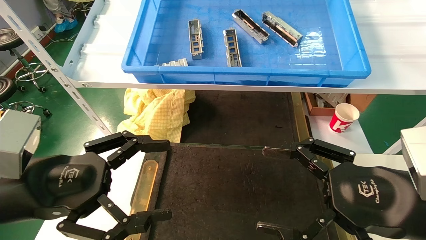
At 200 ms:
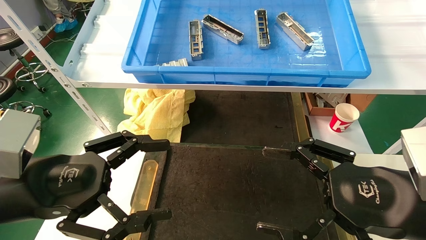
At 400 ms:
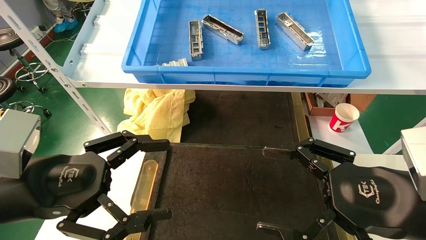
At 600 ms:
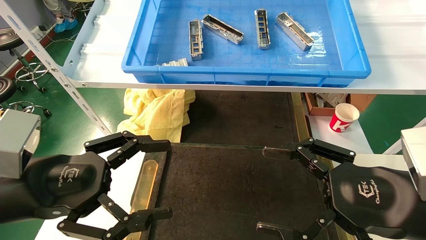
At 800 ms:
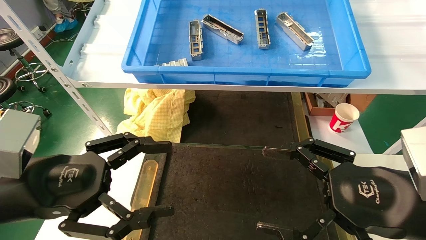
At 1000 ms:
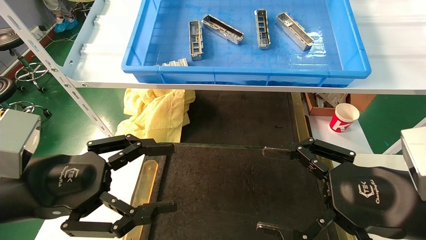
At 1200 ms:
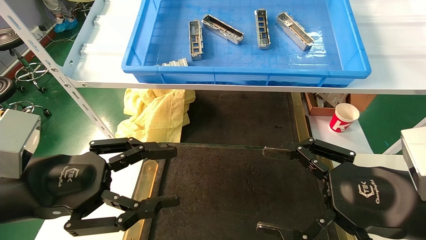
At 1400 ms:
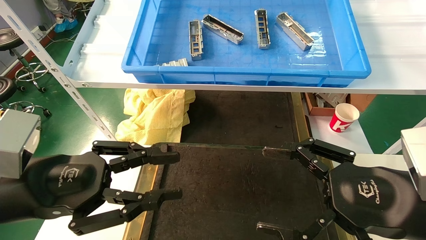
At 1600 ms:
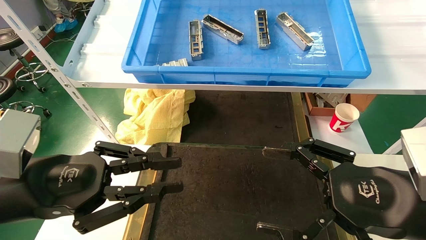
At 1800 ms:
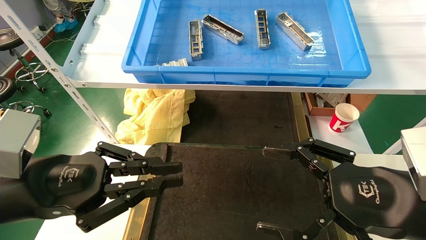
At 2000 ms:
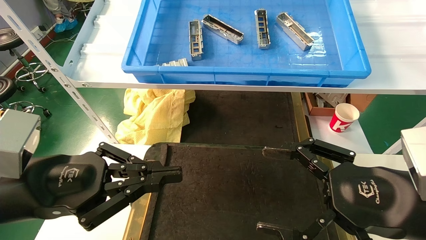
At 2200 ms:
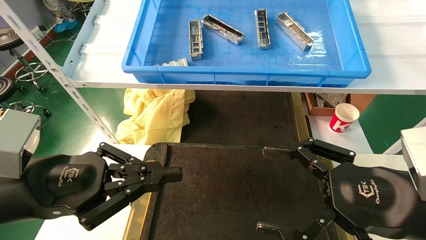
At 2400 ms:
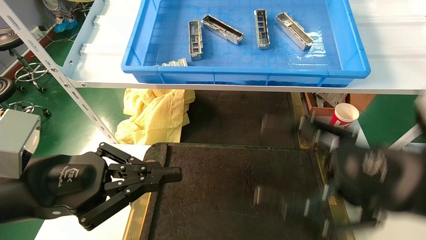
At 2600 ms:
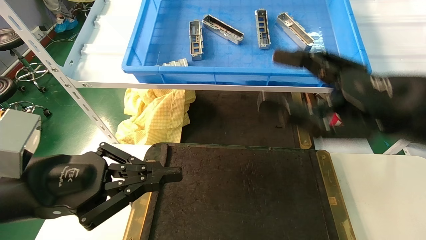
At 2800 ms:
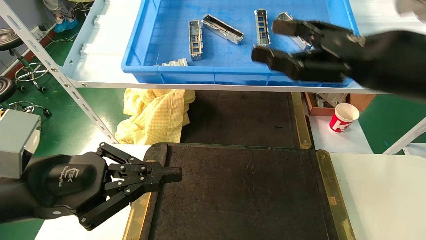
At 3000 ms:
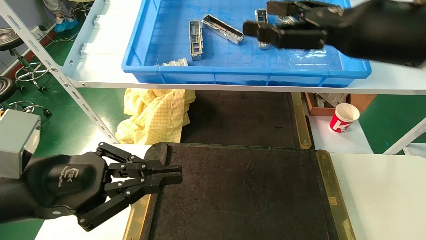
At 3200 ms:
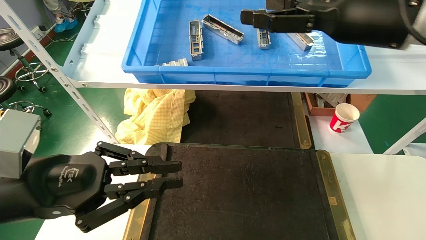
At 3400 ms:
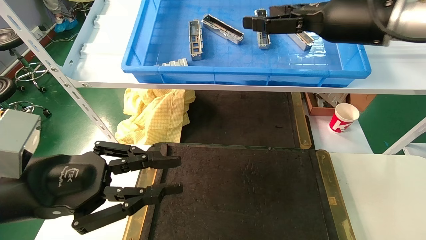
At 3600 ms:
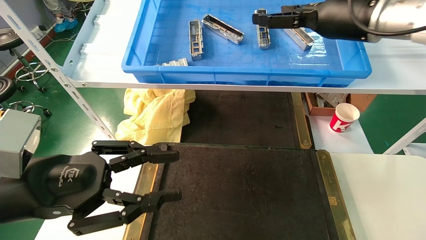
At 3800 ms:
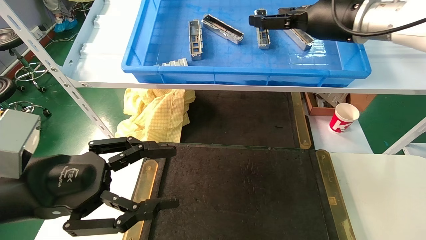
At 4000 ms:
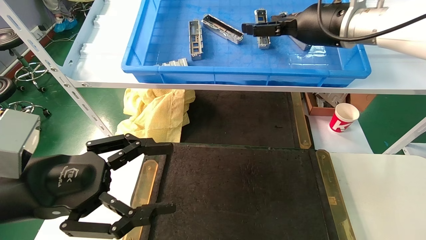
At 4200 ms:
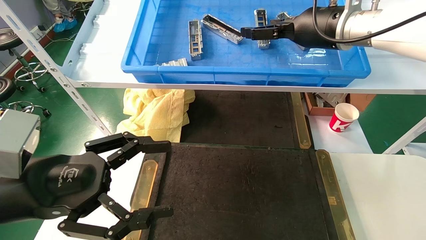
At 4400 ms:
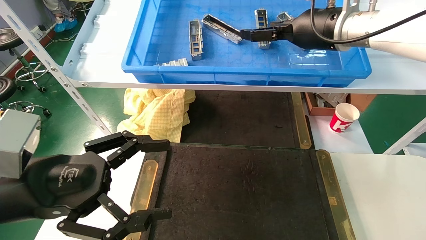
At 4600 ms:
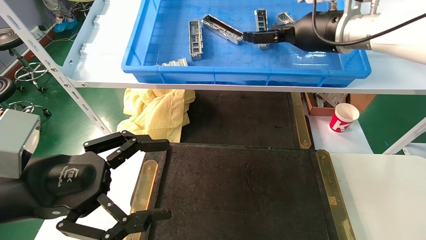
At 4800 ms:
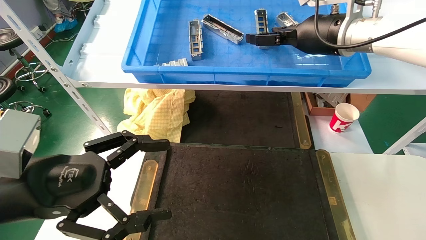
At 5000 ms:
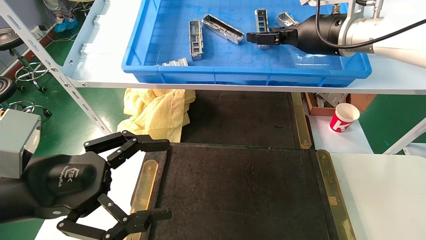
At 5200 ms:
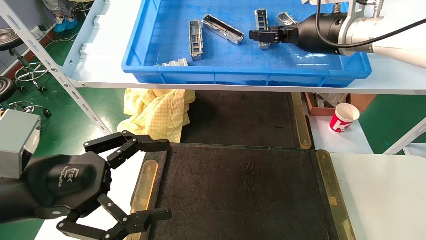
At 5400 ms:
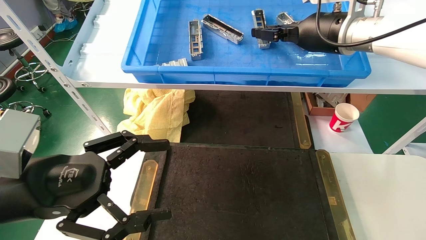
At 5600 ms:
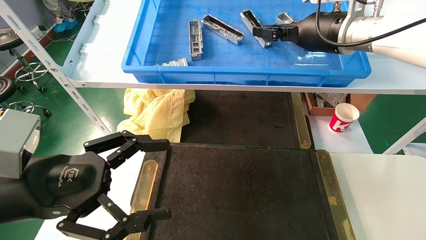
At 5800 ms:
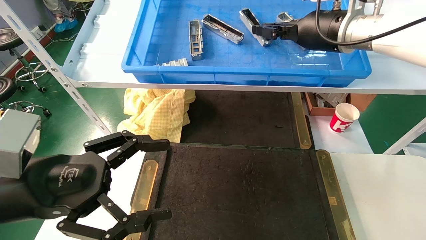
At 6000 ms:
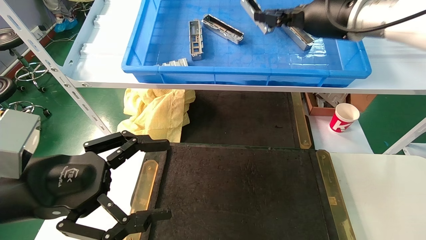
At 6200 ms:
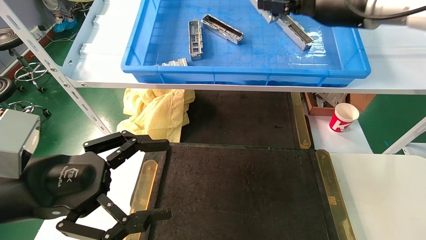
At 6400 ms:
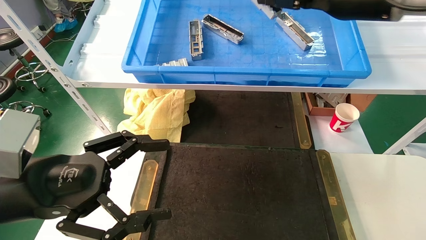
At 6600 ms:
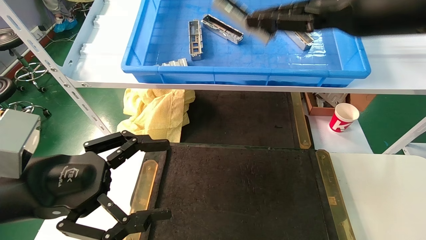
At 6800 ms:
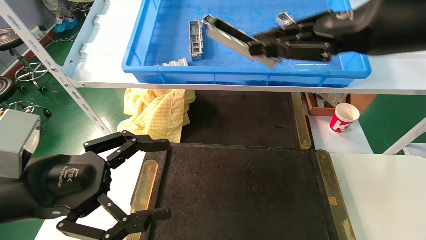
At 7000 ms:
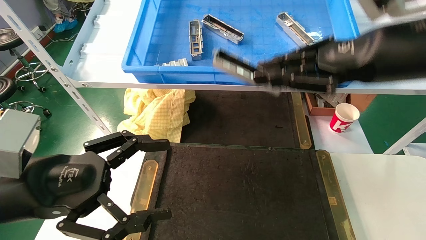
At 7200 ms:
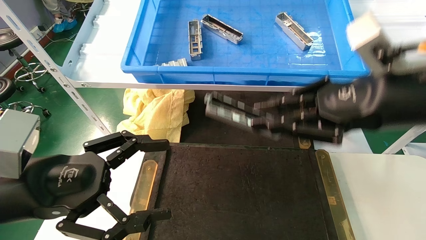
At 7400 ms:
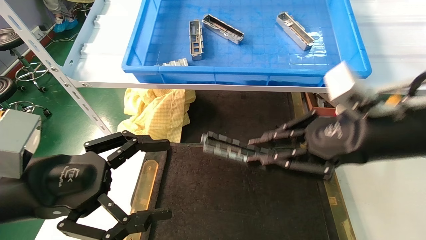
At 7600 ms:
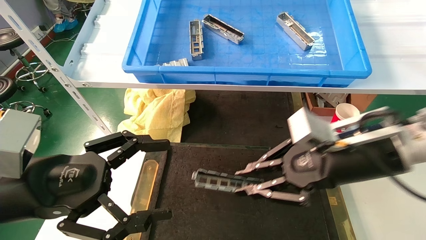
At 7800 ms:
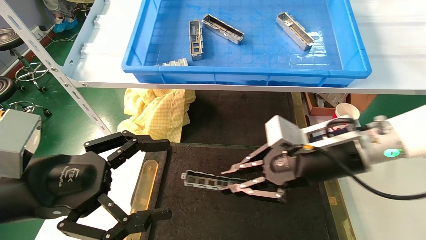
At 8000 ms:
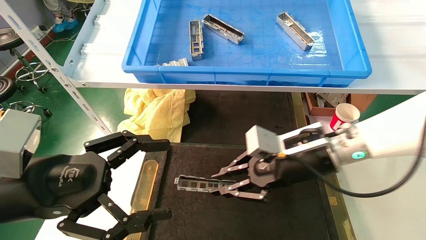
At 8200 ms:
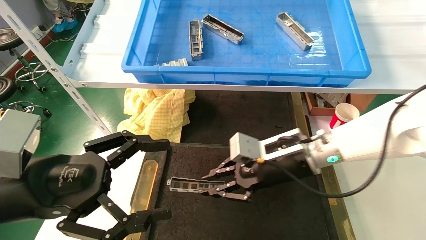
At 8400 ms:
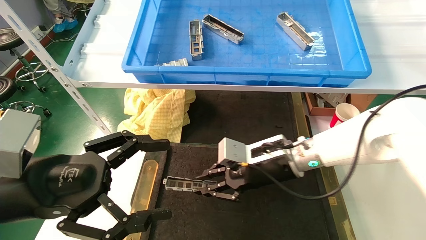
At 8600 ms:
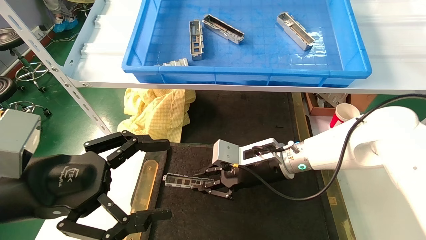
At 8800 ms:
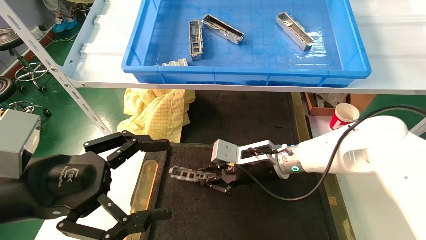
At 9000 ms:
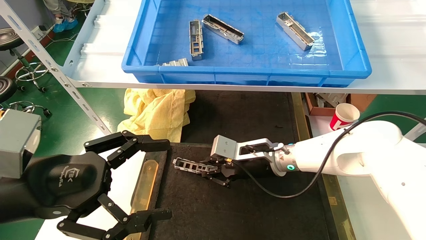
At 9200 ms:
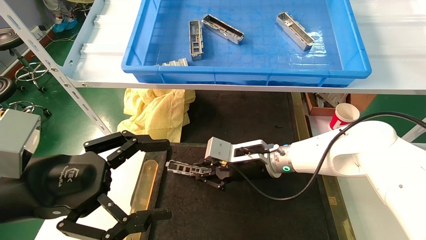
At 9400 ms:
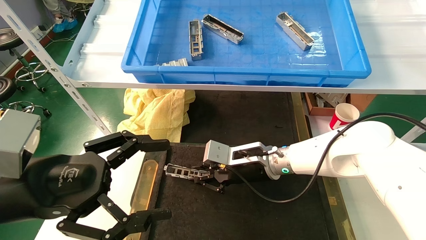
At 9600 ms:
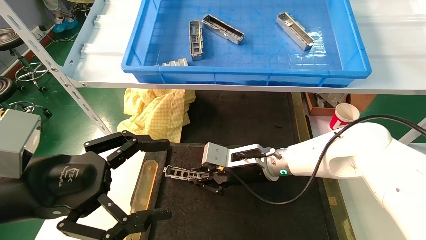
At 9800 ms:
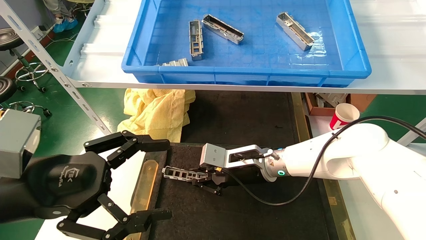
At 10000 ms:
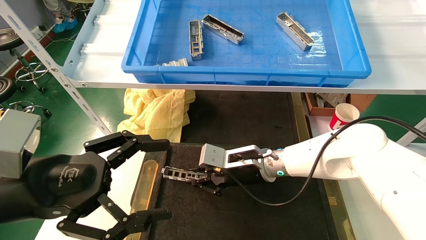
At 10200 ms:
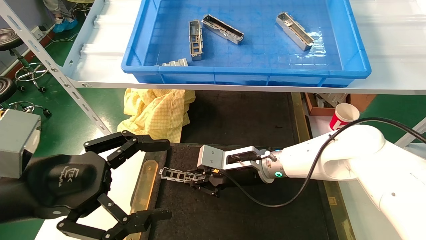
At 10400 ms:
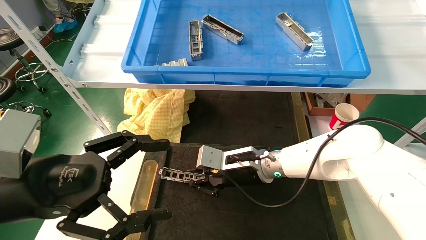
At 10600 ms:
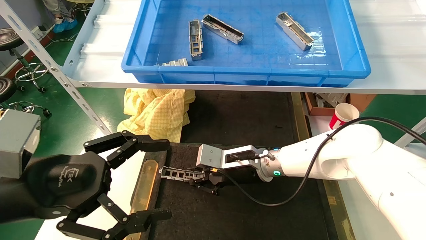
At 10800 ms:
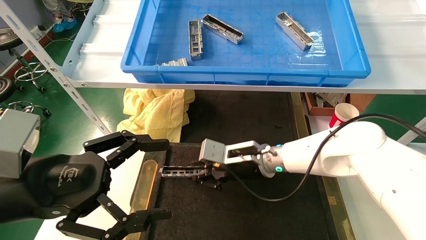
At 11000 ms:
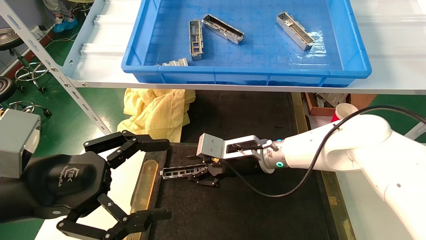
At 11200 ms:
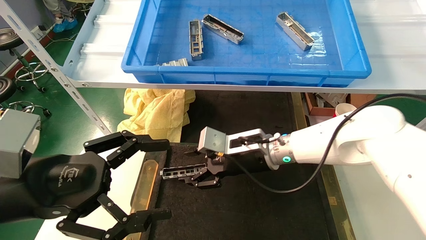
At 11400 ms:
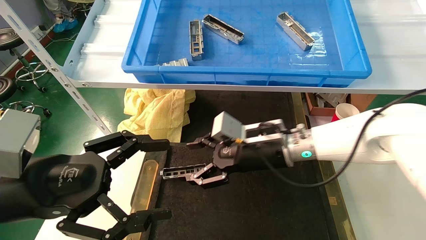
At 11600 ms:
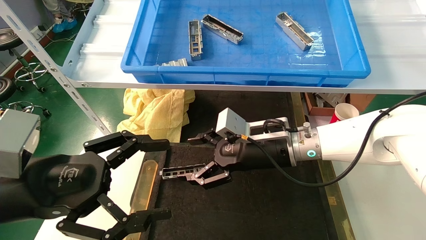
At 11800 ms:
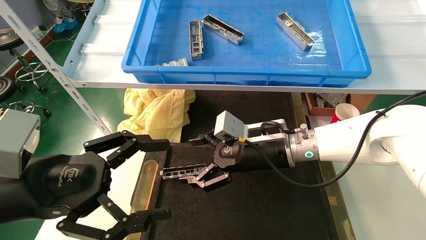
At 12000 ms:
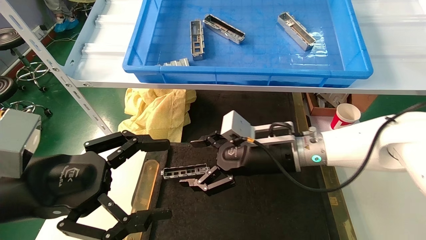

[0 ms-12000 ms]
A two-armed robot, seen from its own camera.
Task of the whole recording: grasp the part and place them on the black container.
Step, 2000 ms to 5400 ms: Pick up and lift the front USB bracket from the feeding area.
Step, 5600 ms to 10200 ms: Place the front USB bracket into the box.
0 ms to 1600 ms: The left gripper closes its fingers.
1600 ms to 3000 ms: The right gripper travels upward and forward by approximately 20 cm.
3000 ms to 4400 ms: The left gripper opens; the right gripper heads forward, covering roughly 10 cm.
4400 ms to 6000 ms: The right gripper closes.
6000 ms to 7600 ms: The right gripper moves downward and backward, approximately 20 cm.
7600 ms to 9000 ms: The right gripper shifts about 20 cm forward, to the left and downward.
9000 ms to 10400 ms: The grippers stay close to where they were, moving slightly.
10400 ms to 12000 ms: The right gripper moves upward, approximately 5 cm, and opens its fingers.

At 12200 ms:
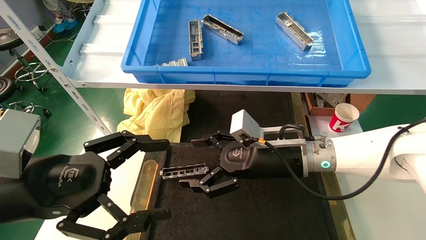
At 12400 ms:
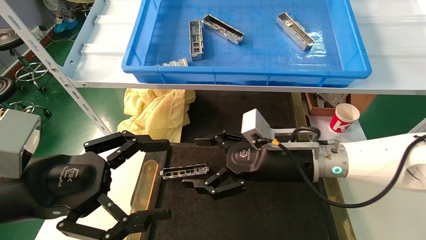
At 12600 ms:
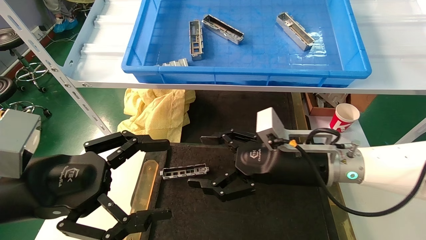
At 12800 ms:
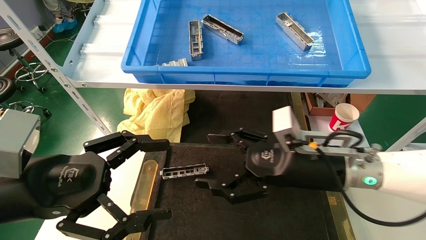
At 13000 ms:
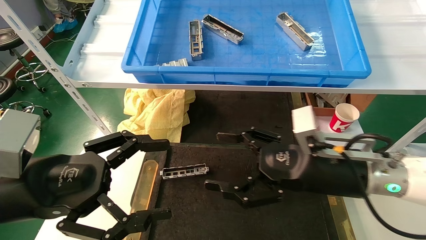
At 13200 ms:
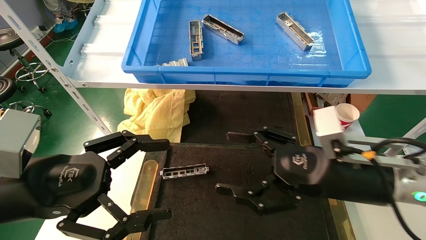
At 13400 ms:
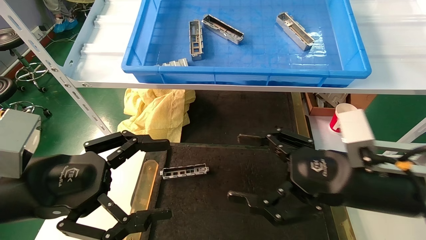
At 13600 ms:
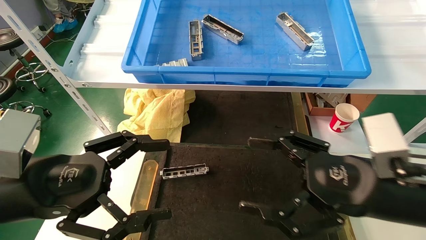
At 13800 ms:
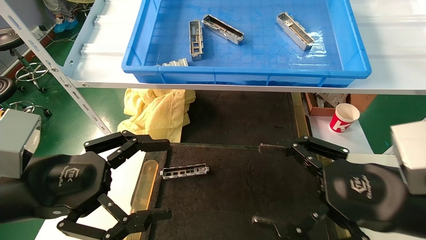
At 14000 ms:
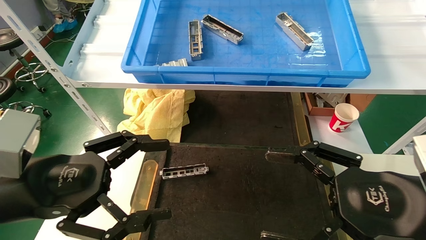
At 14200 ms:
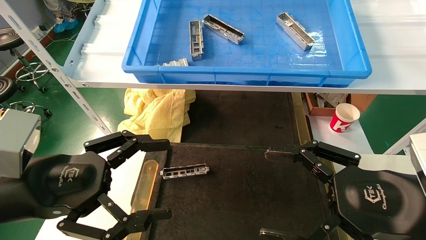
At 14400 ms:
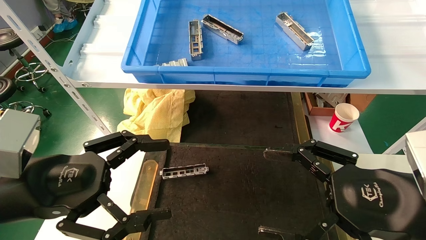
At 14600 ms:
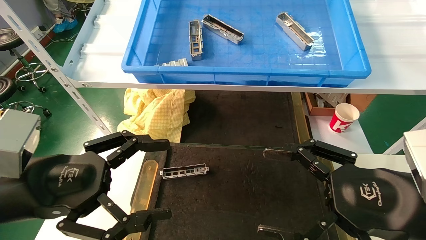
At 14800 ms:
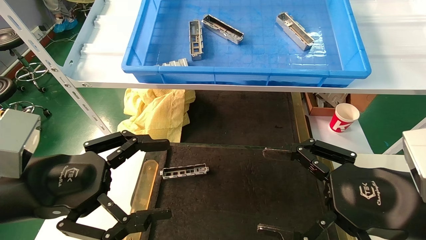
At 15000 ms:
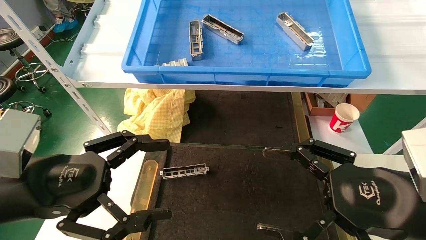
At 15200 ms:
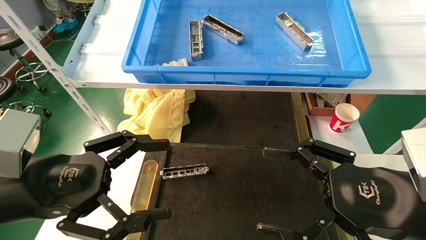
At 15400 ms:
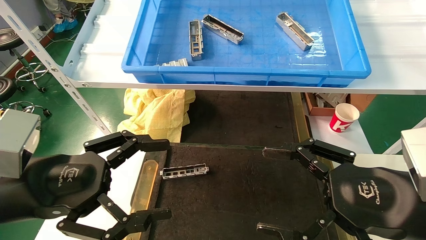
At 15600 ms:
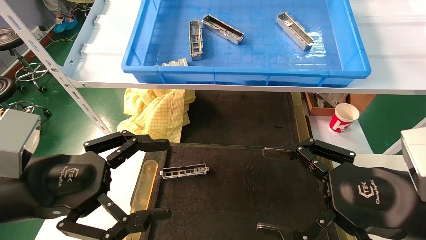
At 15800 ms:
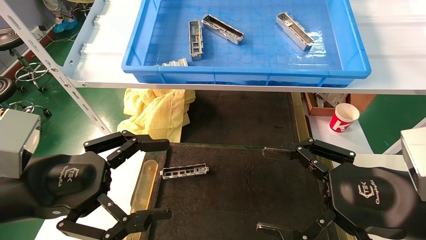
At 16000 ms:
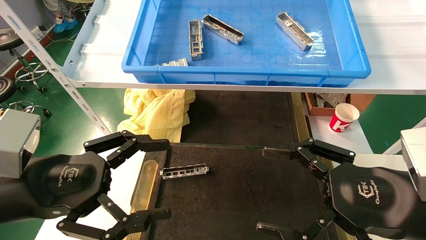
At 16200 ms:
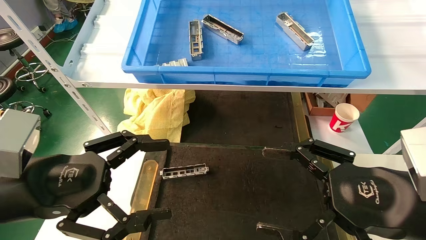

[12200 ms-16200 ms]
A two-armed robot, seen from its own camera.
Task of the whole recording: grasp the part and place them on the black container.
12200 ms to 13600 ms: The right gripper is displaced backward and to the right by approximately 20 cm.
13600 ms to 14800 ms: The grippers stay close to where they were, moving slightly.
14800 ms to 16200 ms: Both grippers stay put.
